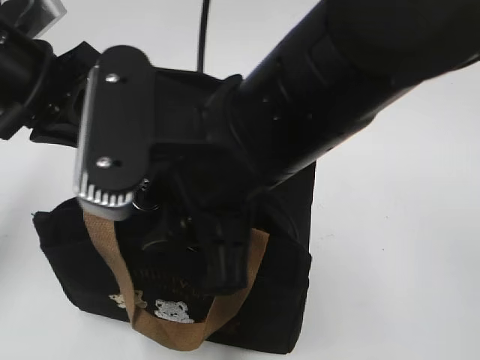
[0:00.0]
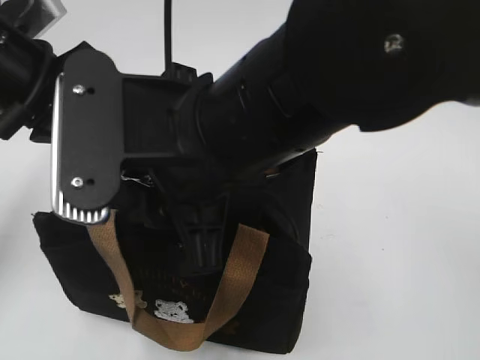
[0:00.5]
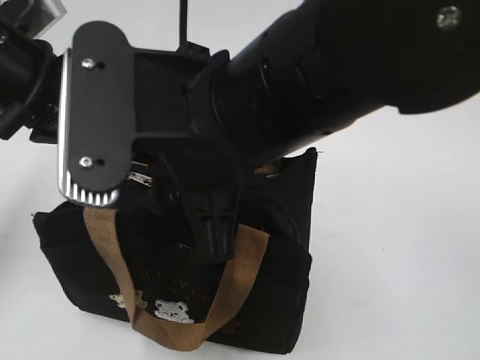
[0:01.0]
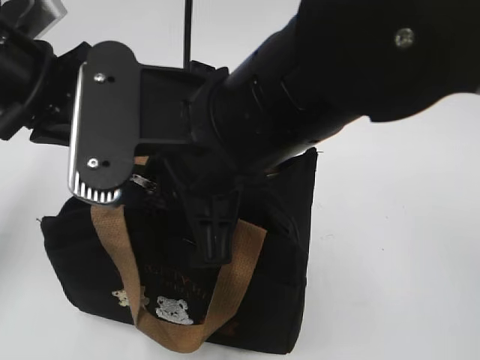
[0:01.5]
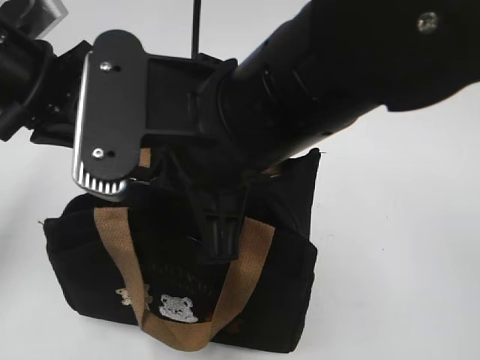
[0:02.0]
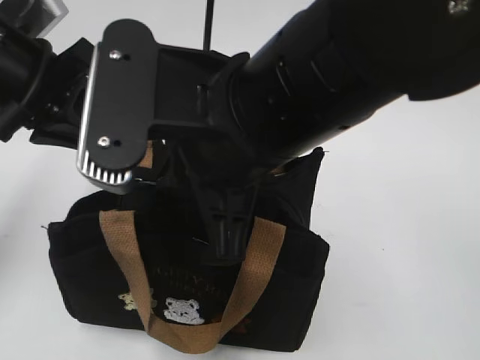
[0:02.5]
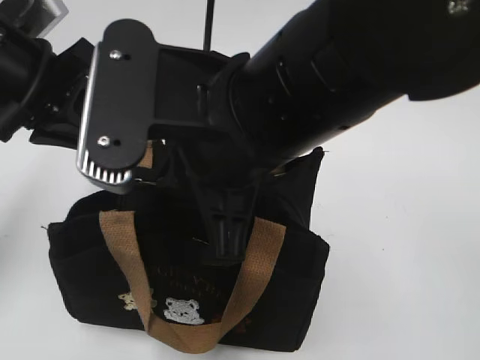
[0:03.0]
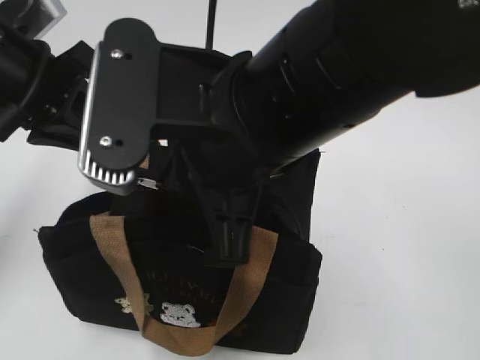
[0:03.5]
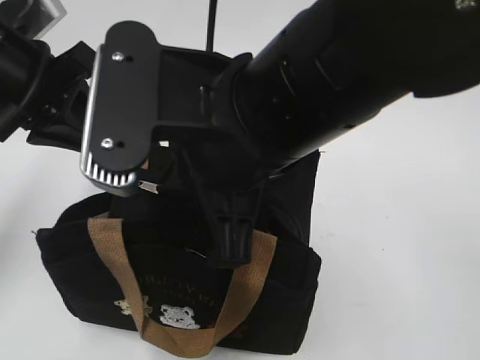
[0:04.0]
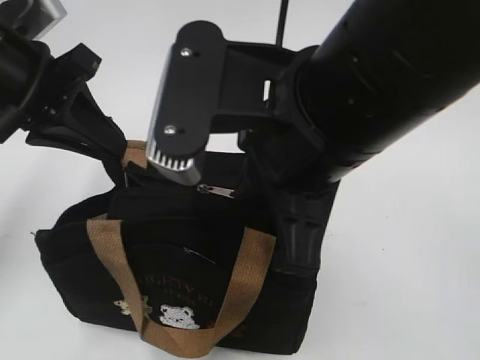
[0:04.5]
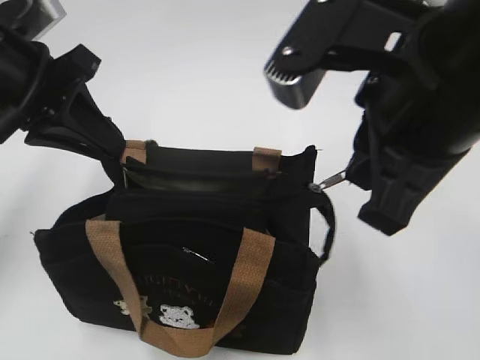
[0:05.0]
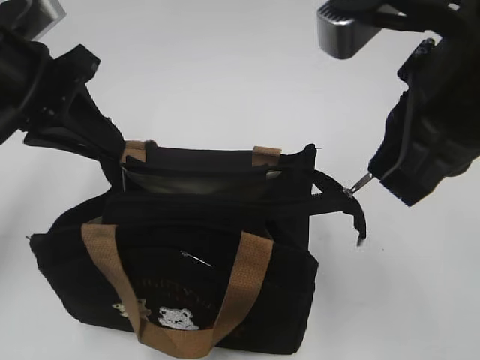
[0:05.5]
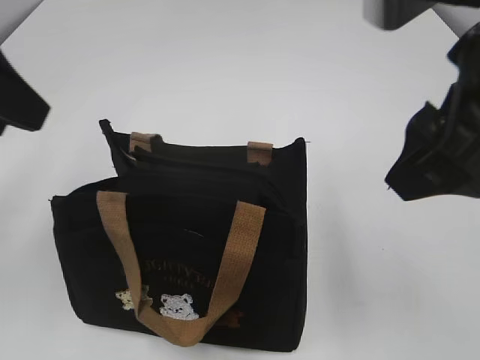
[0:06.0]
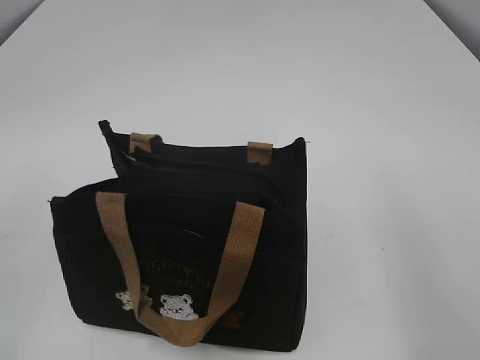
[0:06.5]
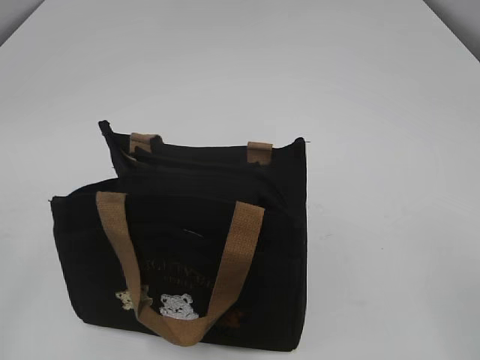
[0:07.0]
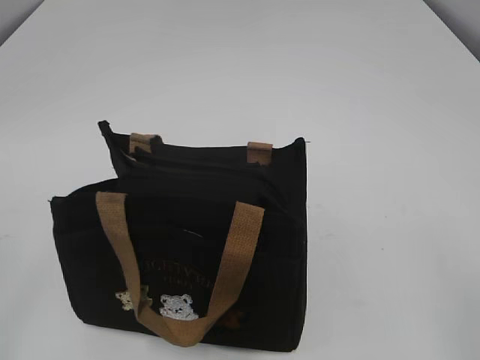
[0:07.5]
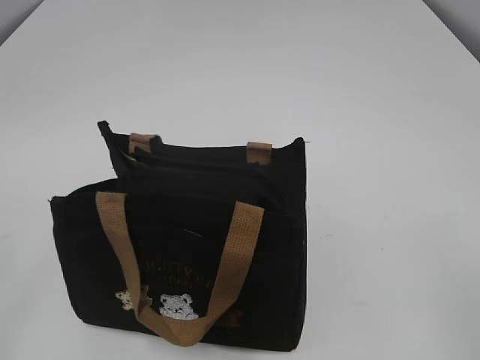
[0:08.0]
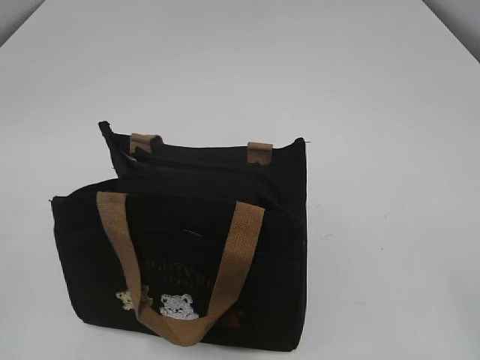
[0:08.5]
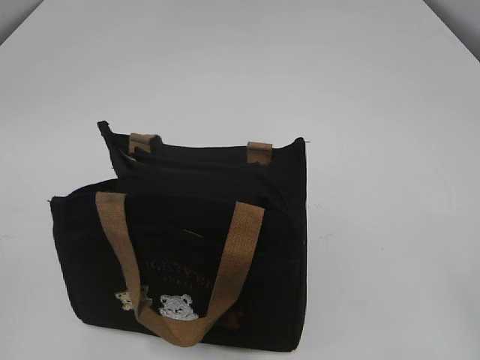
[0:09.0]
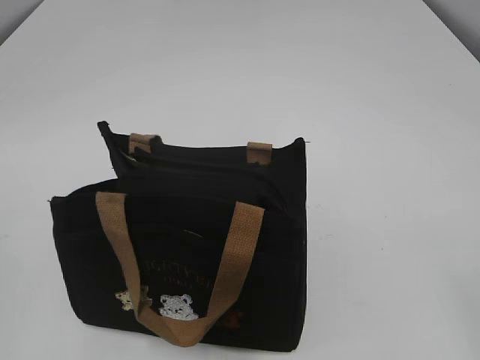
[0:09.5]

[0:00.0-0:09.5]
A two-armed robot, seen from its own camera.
Step, 0:00.0 to 0:05.5: Pull open the zipper with your right hand.
0:00.0 to 0:02.0: The right gripper closes.
0:02.0 to 0:04.0: Both grippers stay about where they are.
0:04.0 to 0:05.5: The right gripper is displaced to the right by about 10 cm.
0:05.5 to 0:07.5: The right gripper is displaced backward and to the right by about 25 cm, and opens its fingers. Meanwhile the left gripper travels backward and to the left by roughly 30 cm, and opens.

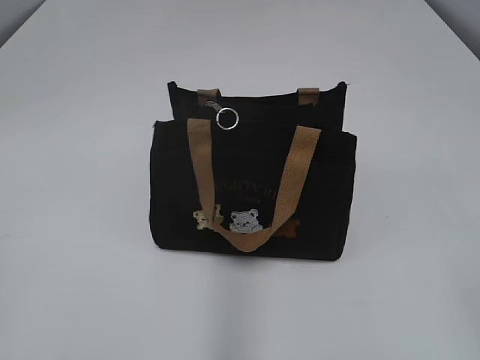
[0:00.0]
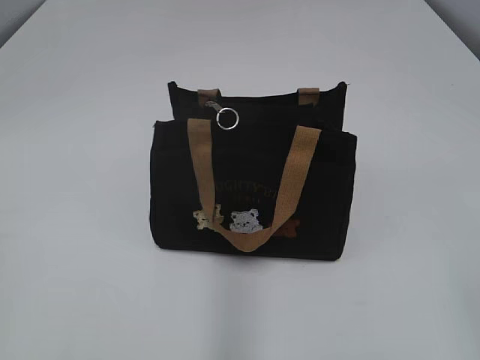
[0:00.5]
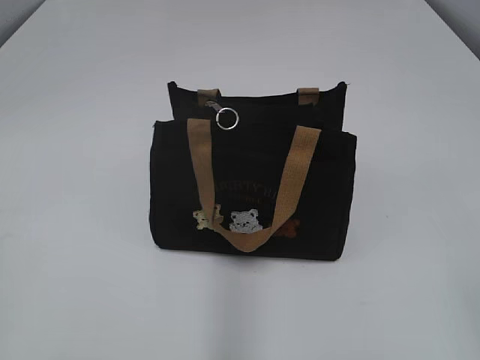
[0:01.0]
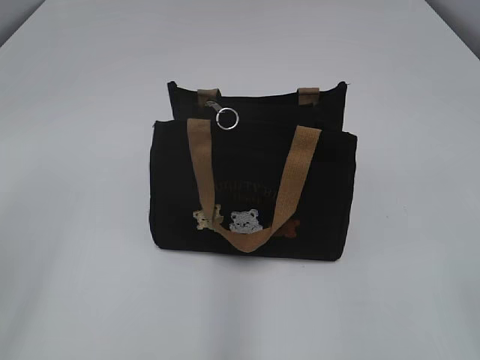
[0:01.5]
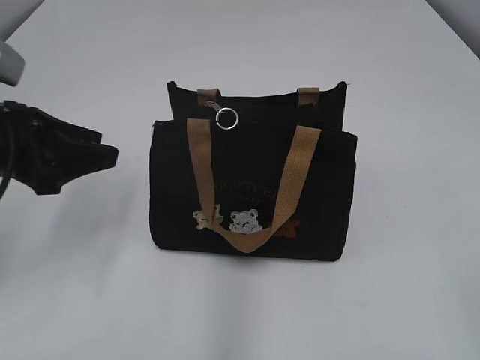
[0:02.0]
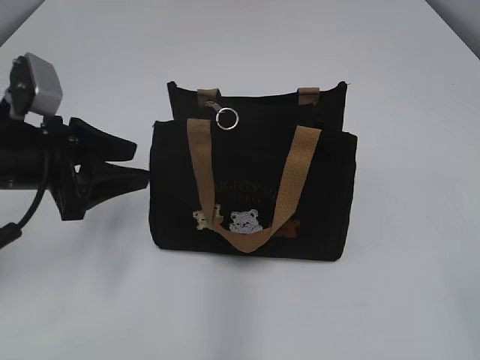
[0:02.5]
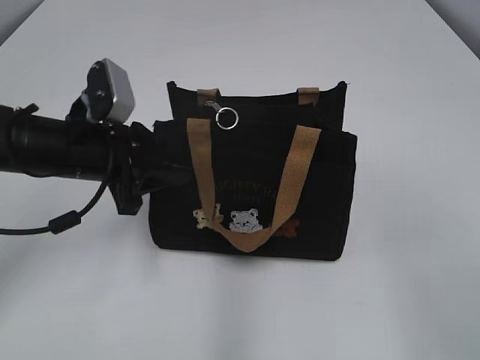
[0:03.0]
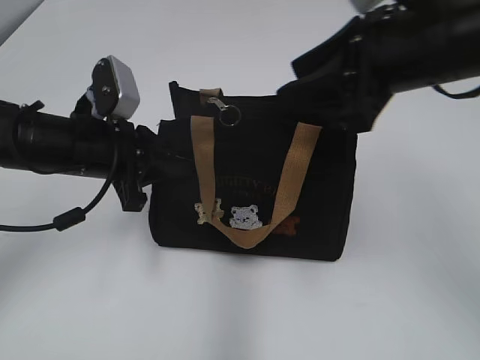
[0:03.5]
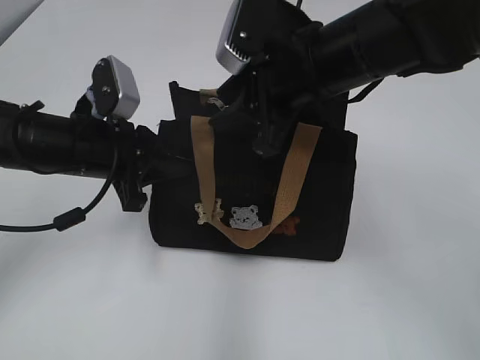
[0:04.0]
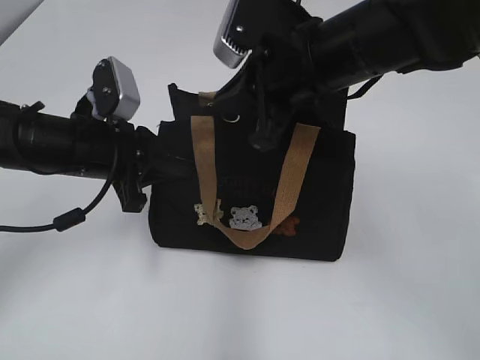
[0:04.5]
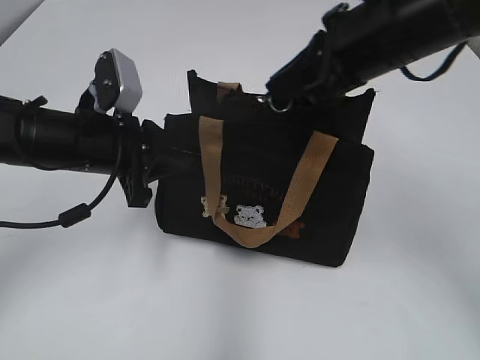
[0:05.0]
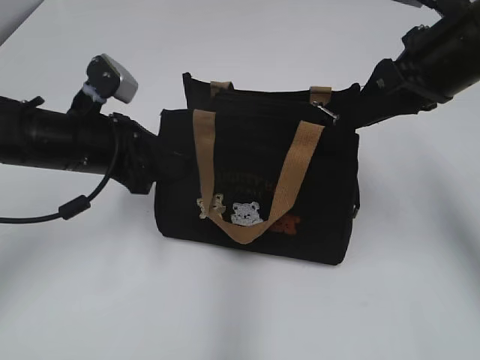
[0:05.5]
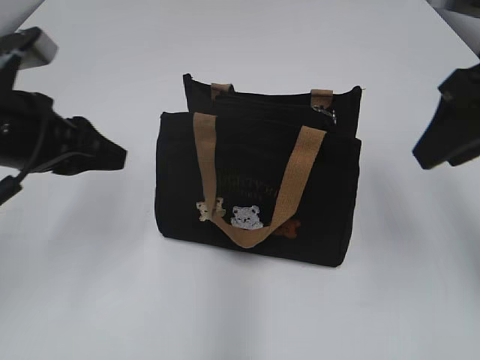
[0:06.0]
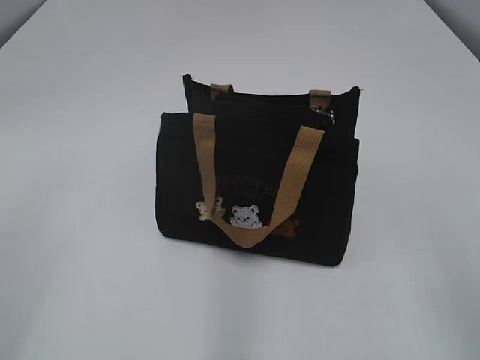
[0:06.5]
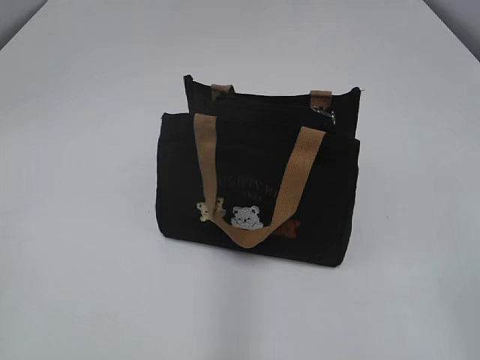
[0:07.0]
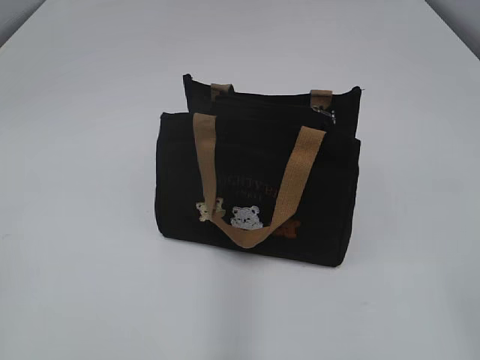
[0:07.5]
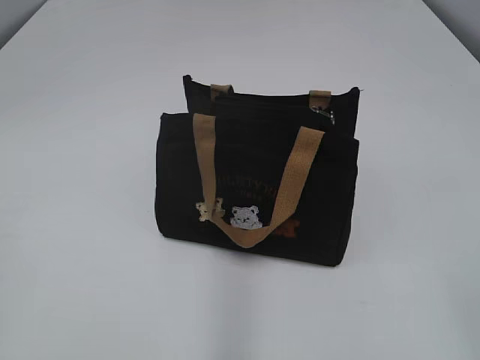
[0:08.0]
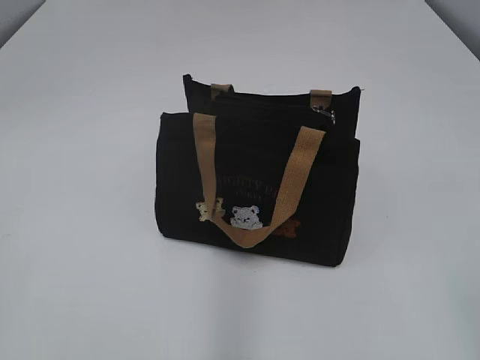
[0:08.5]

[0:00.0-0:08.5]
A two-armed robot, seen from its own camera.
Step, 0:00.0 to 0:05.5: Pull open the zipper with your right hand.
0:02.0 to 0:04.0: The left gripper goes roughly 10 cm to the right, forward and downward, and closes up. Meanwhile the right gripper heads forward and to the left, covering roughly 40 cm.
0:04.0 to 0:06.5: The right gripper goes some 30 cm backward and to the right, and closes, then reopens; the left gripper heads backward, upward and to the left, covering roughly 25 cm, and opens its fingers.
